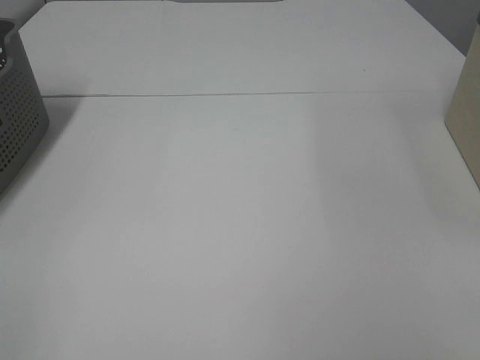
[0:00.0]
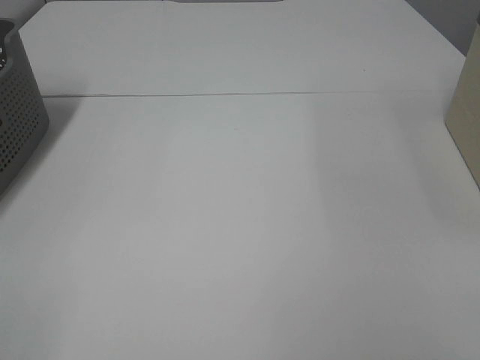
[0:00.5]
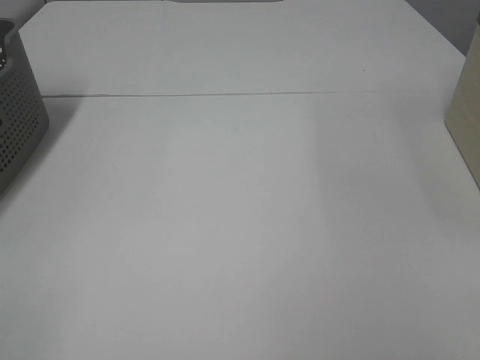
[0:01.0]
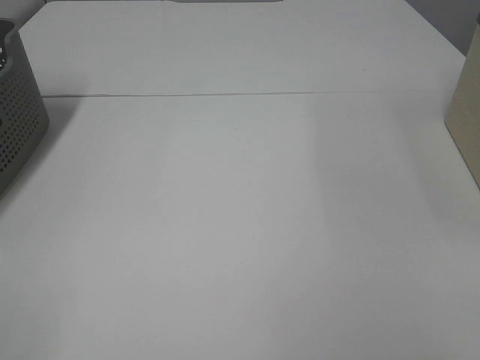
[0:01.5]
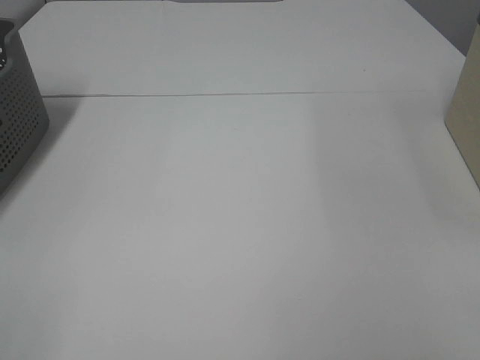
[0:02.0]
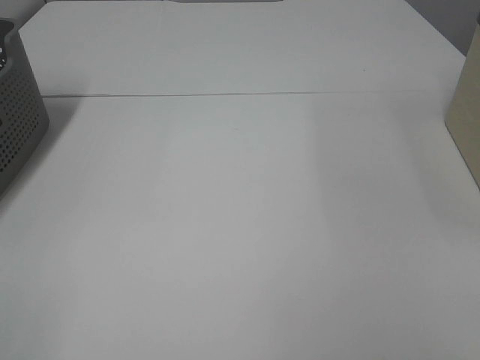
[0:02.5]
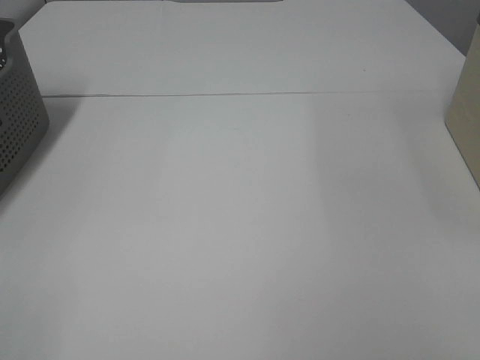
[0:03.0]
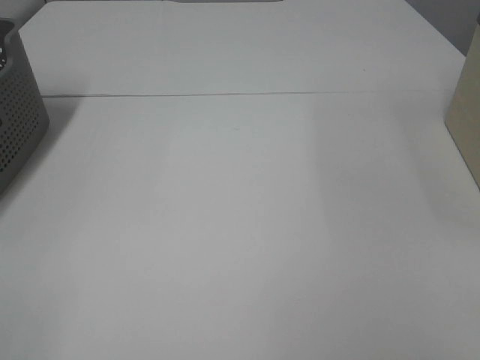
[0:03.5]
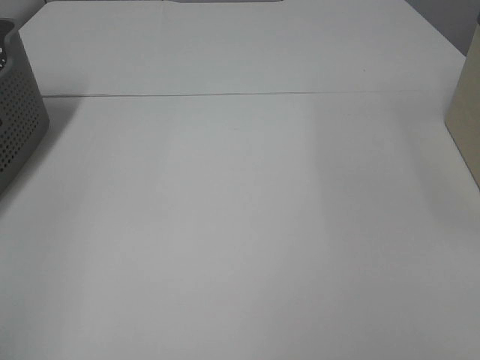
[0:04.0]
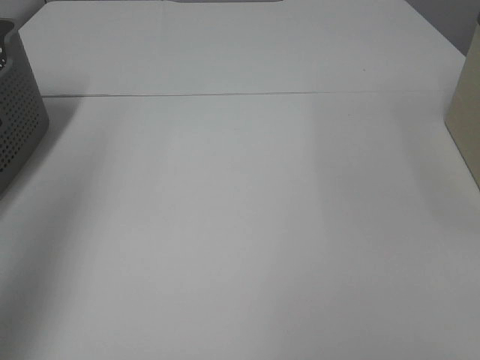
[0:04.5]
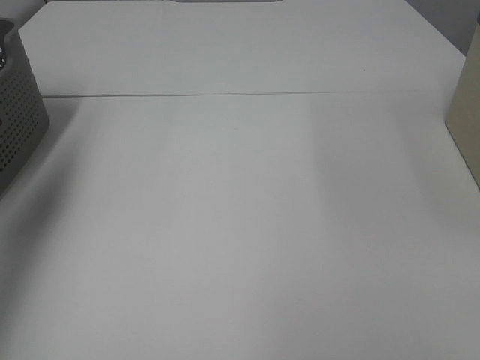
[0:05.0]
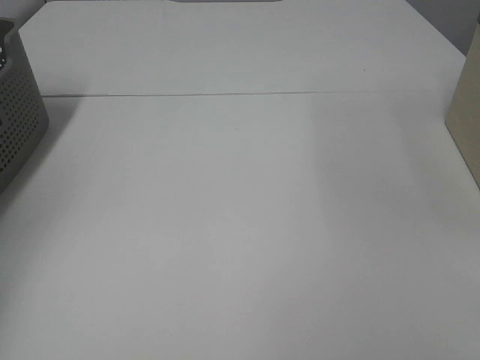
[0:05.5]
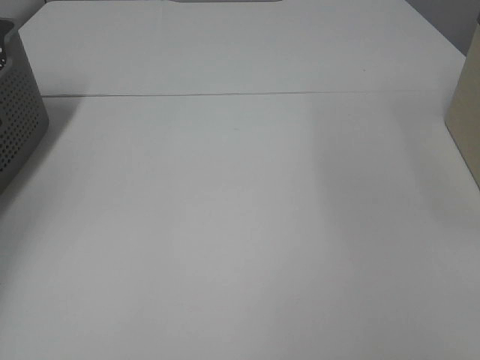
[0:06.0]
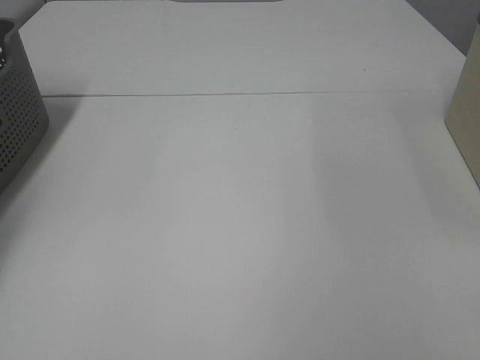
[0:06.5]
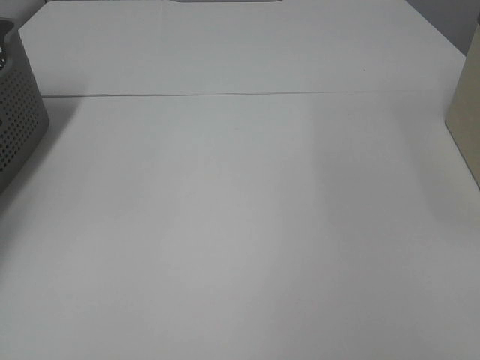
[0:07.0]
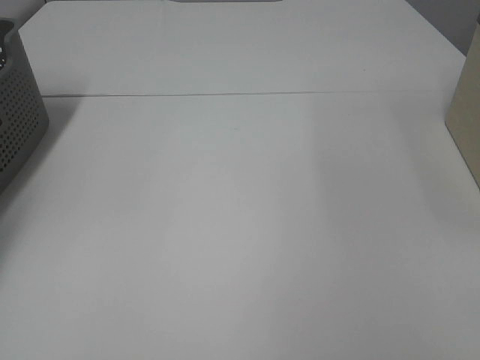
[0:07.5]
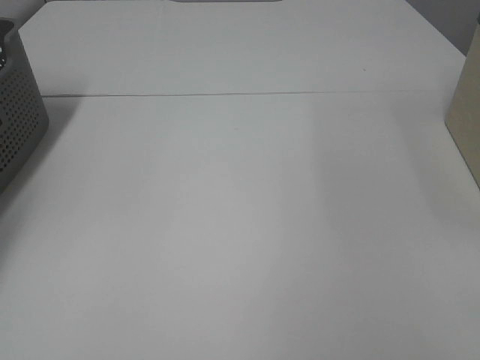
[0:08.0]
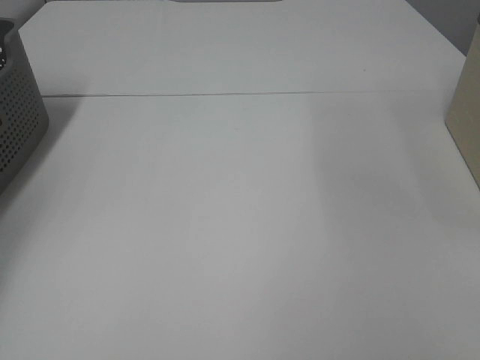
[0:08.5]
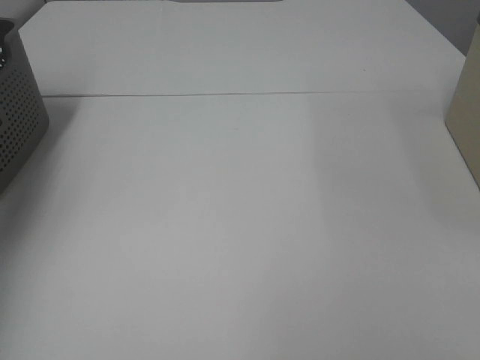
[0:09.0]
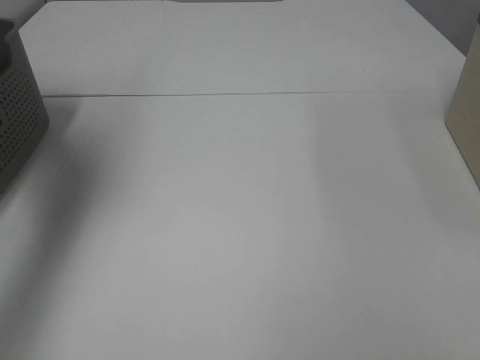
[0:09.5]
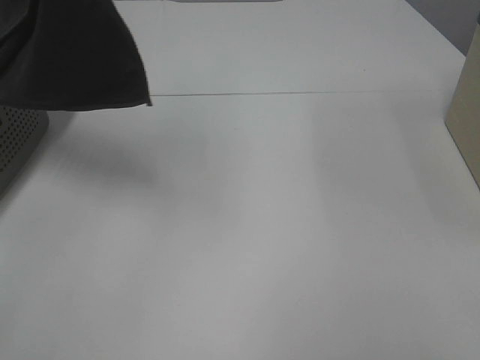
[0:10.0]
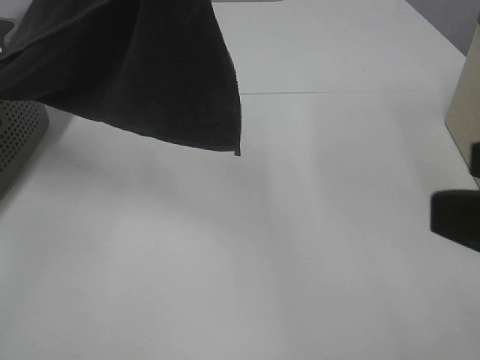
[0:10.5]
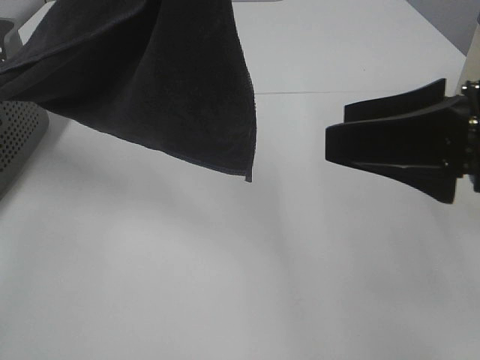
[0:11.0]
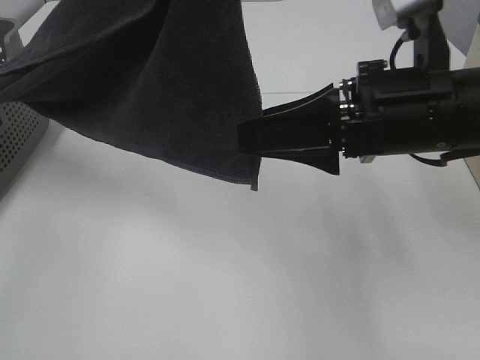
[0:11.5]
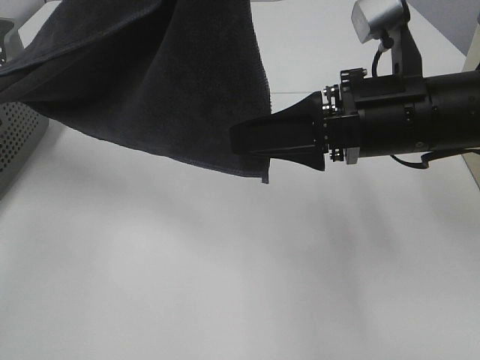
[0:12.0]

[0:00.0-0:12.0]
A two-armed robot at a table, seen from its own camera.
Task of the whole recording: Remove the towel and place it.
0:00.0 to 0:02.0: The two grippers keep their place.
0:04.0 to 0:06.0: The left gripper is displaced forward and to the left by some 40 cm.
0:08.0 to 0:10.0: The left gripper is displaced to the right, upward and backward by some 40 cm.
0:10.0 to 0:12.0: The left gripper heads to the right and backward, covering roughly 10 cm, while the right gripper is displaced forward and to the left by approximately 30 cm.

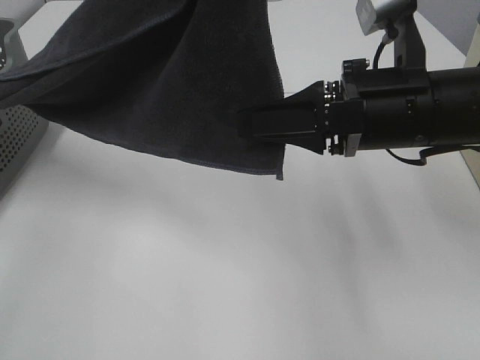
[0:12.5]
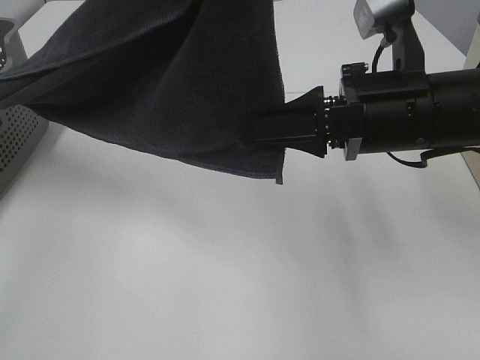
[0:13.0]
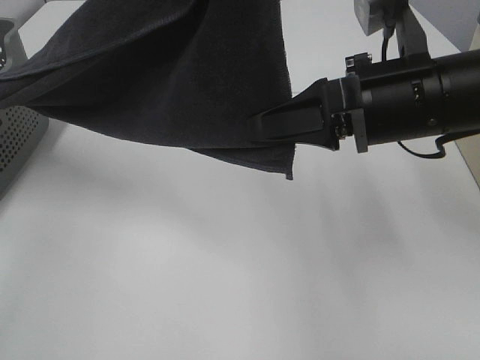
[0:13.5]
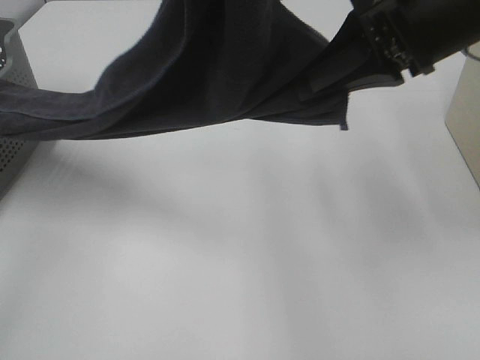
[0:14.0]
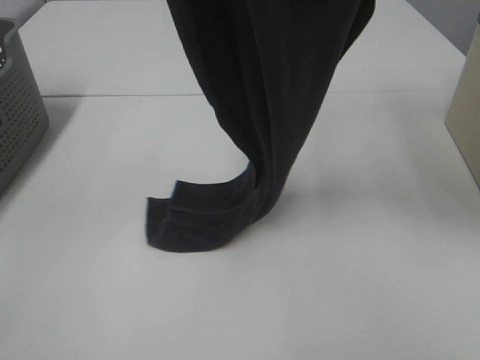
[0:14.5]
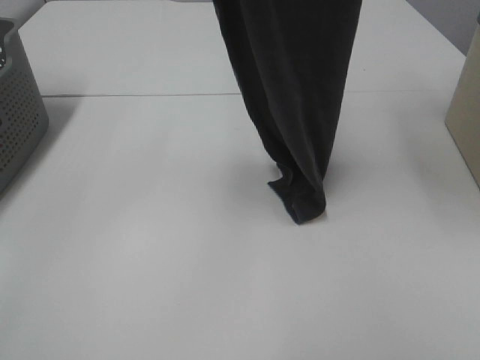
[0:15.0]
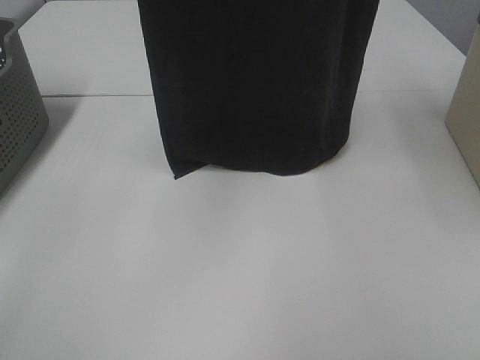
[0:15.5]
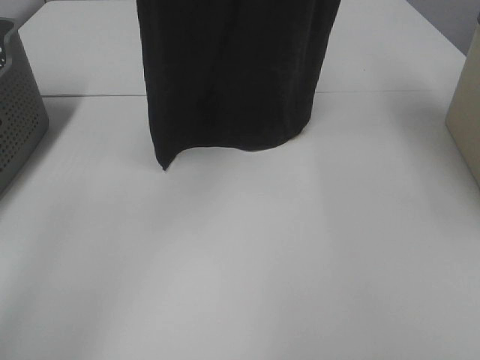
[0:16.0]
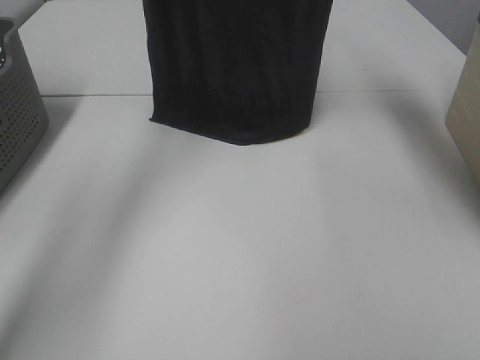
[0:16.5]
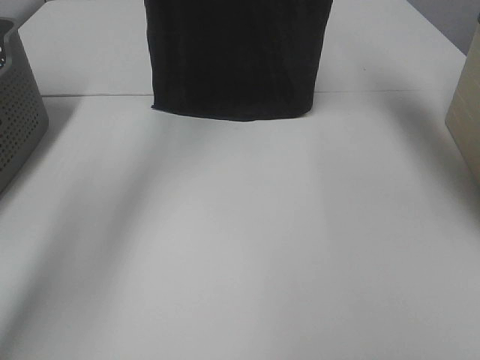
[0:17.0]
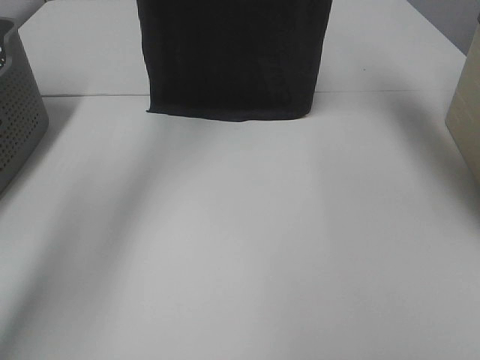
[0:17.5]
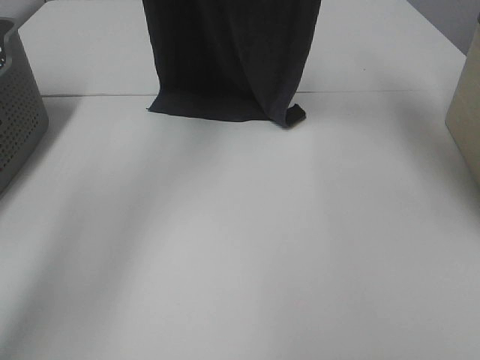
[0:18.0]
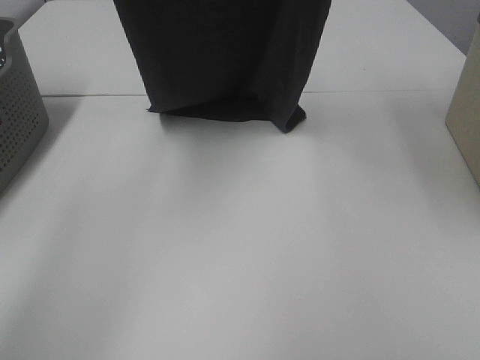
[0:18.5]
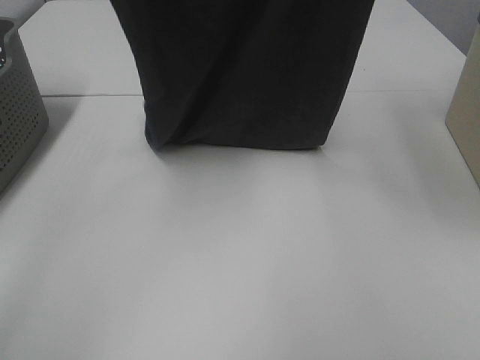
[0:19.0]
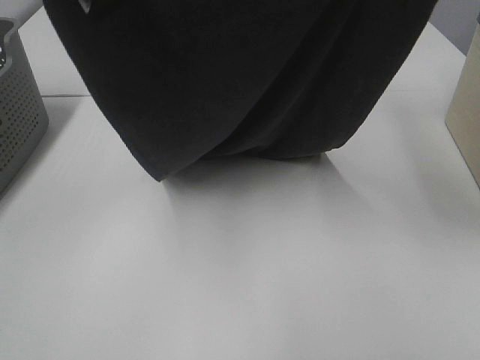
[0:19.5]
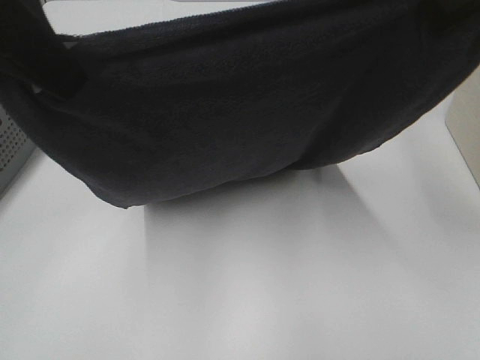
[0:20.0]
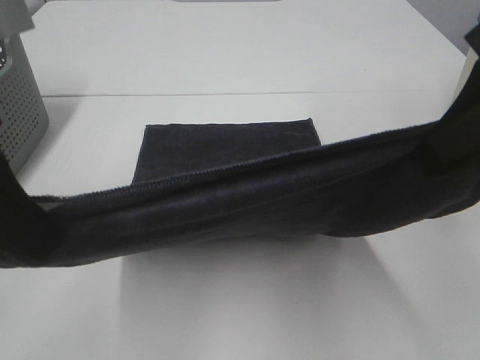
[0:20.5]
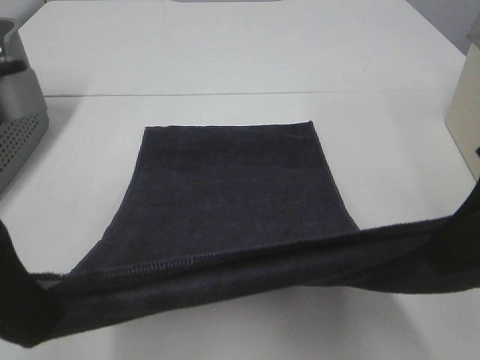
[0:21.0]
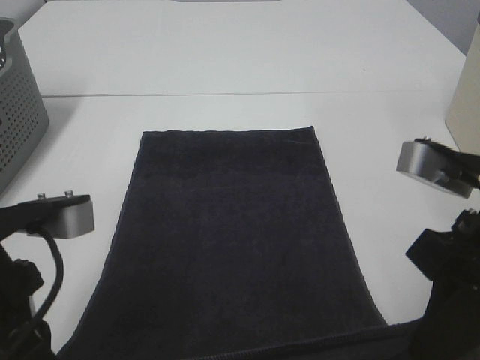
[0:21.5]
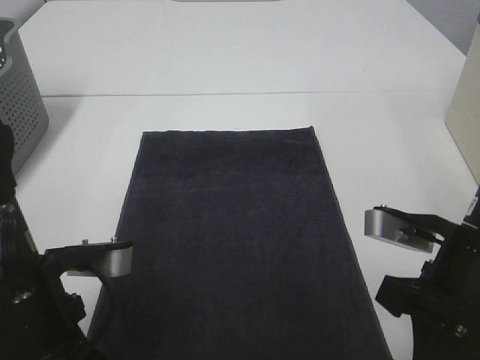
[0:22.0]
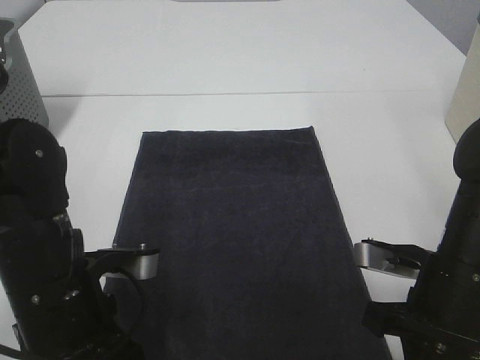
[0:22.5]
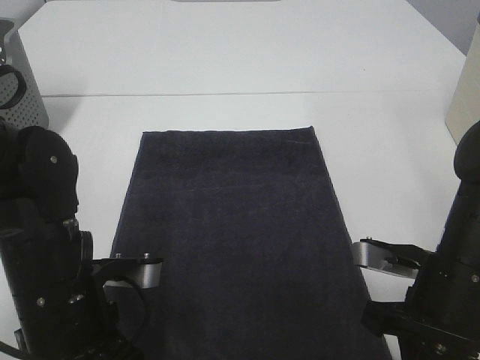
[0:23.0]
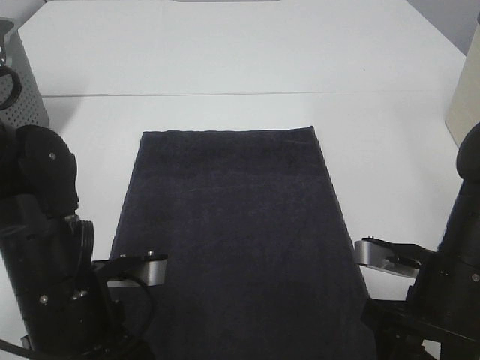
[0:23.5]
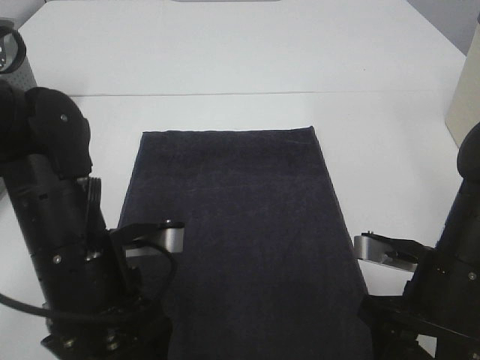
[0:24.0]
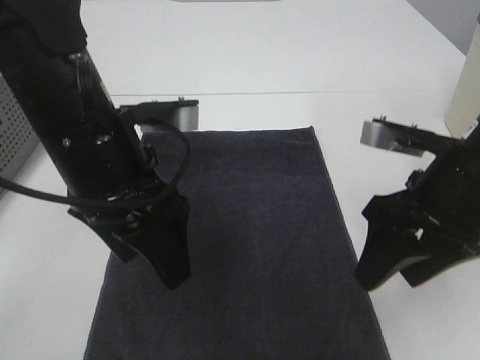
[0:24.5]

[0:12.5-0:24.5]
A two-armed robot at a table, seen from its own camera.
Task of the whole recording: Remove the towel and place it.
Step, 0:12.5 to 0:14.5: Right hand: grab a corner of the grey towel and straighten it.
Step, 0:15.0 to 0:19.0: Left hand: spread the grey towel flat on the table.
Step, 0:15.0 to 0:19.0: Right hand: spread the grey towel flat on the table.
0:12.5 to 0:14.5: The right gripper heads upward, covering approximately 25 cm.
0:14.5 to 0:16.5: The two grippers go roughly 20 cm forward.
0:16.5 to 0:18.5: The grippers both shift backward by some 10 cm.
0:18.5 to 0:20.5: Both grippers travel together backward and downward, approximately 25 cm.
0:20.5 to 0:22.5: The two grippers go about 20 cm downward.
0:22.5 to 0:24.5: The right gripper shifts roughly 10 cm upward, and opens; the left gripper goes about 15 cm upward and forward, and opens its fingers.

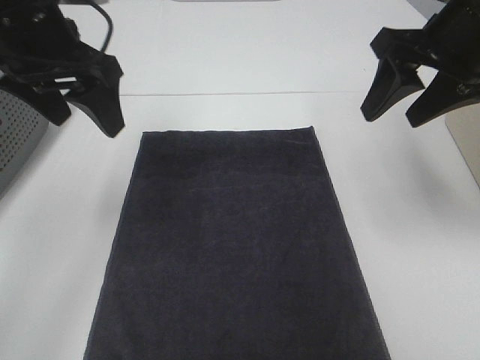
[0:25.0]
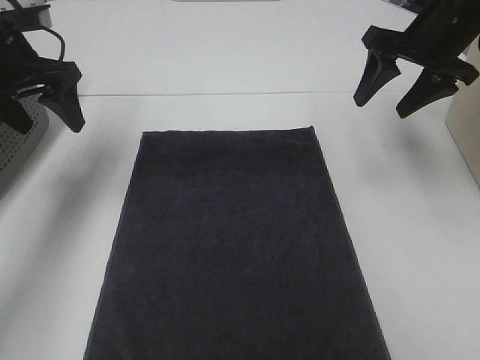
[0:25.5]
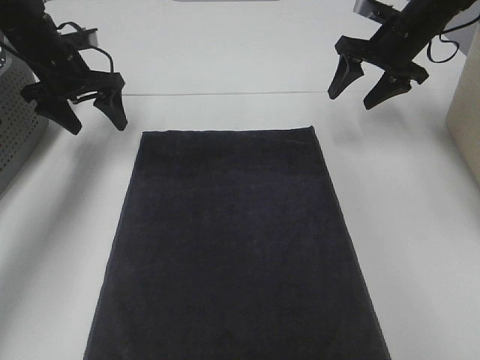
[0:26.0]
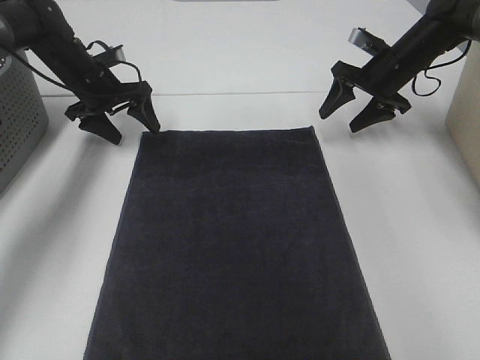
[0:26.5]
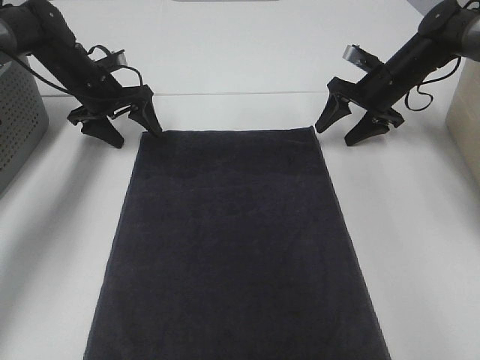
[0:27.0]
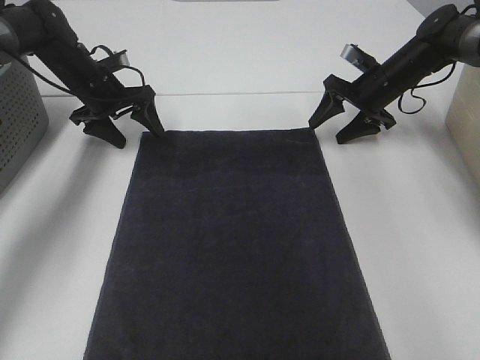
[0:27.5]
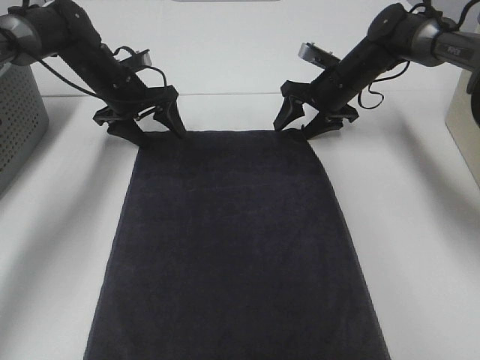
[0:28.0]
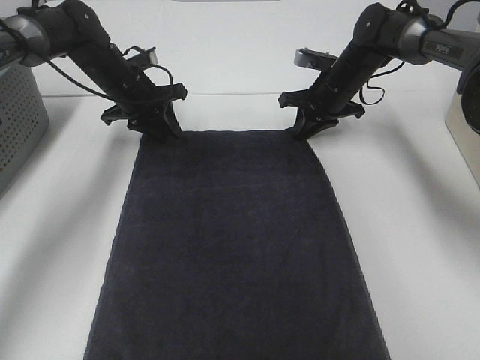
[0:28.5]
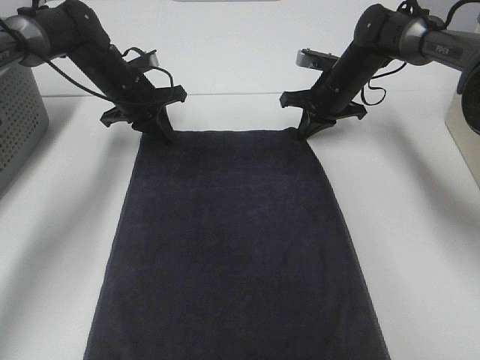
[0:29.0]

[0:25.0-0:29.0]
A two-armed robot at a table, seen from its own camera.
Task of the whole recording: Remove the towel and place it.
Step, 0:25.0 to 0:28.5: Left hand:adjust the gray towel.
Step, 0:25.0 to 0:28.5: Right hand:adjust the gray towel.
0:25.0 to 0:27.0: Both grippers move forward and downward, about 25 cm.
0:27.0 to 0:29.0: The right gripper travels to the left by about 10 cm, and closes up, while the left gripper is displaced to the right by approximately 5 cm, and closes.
